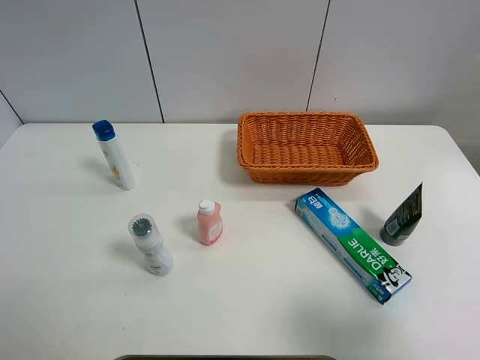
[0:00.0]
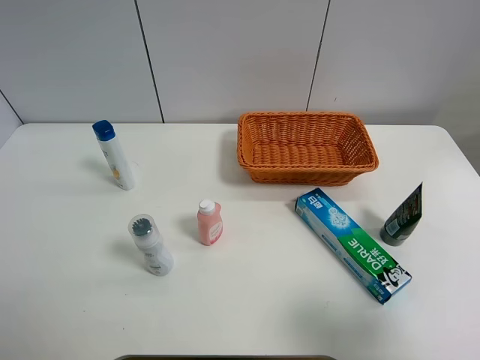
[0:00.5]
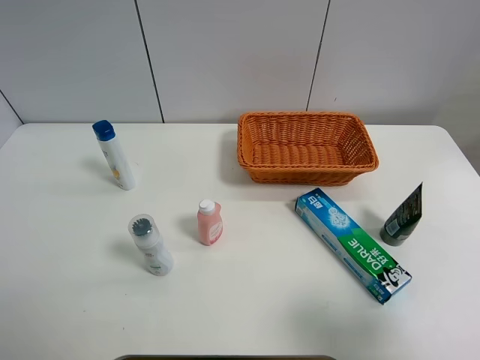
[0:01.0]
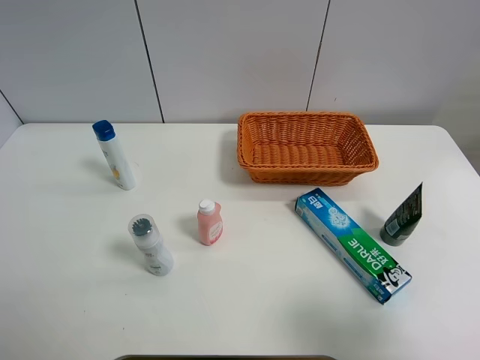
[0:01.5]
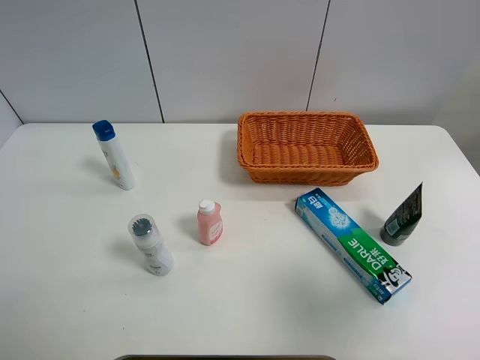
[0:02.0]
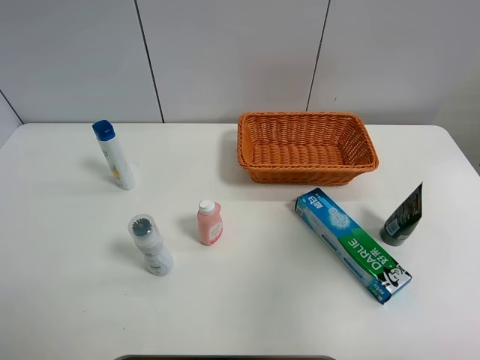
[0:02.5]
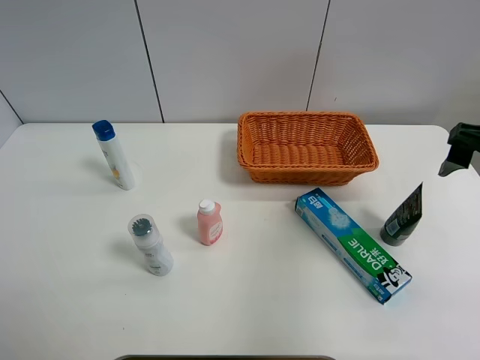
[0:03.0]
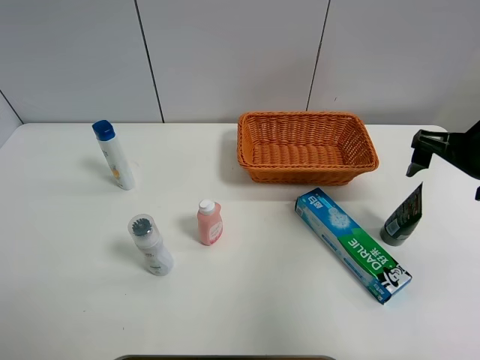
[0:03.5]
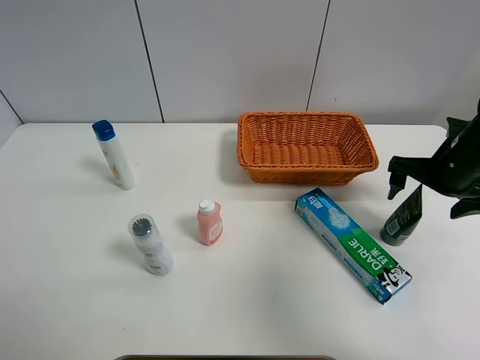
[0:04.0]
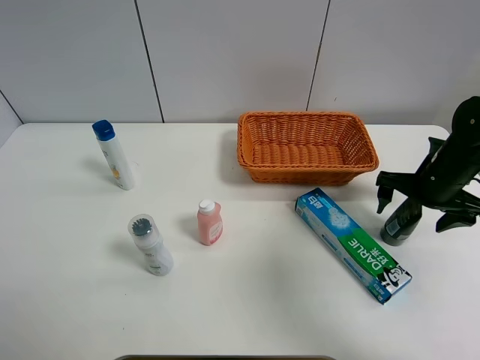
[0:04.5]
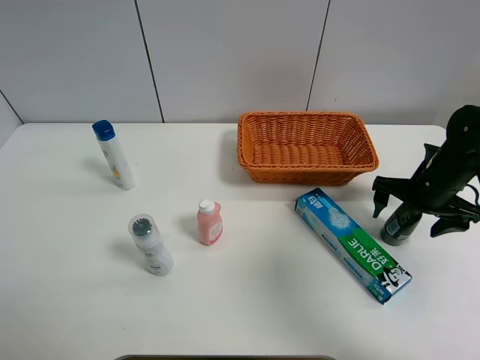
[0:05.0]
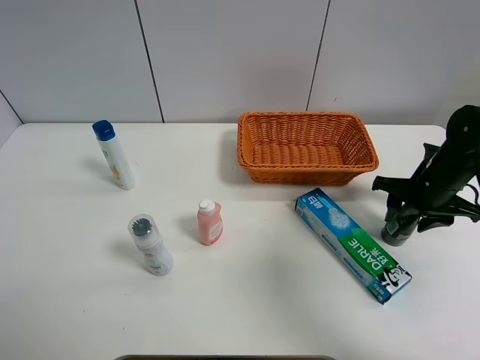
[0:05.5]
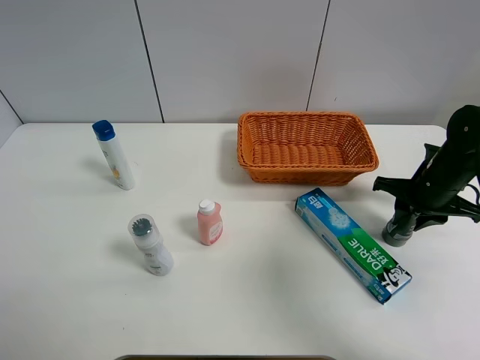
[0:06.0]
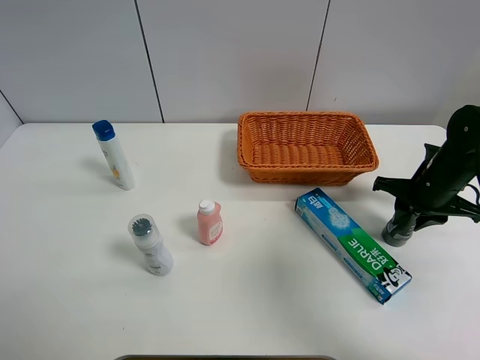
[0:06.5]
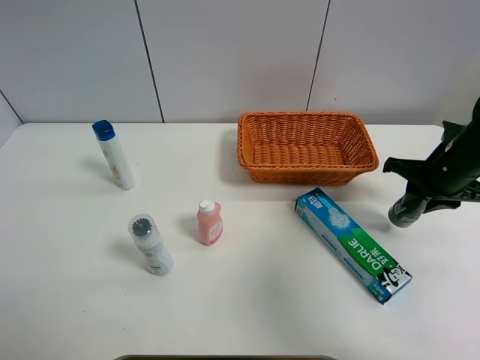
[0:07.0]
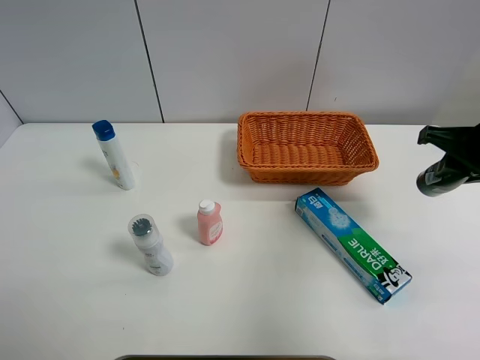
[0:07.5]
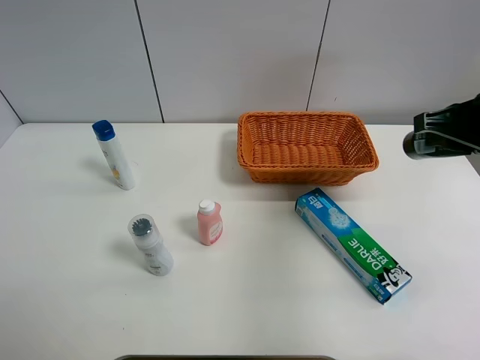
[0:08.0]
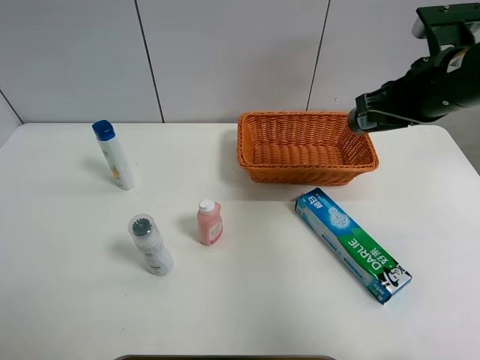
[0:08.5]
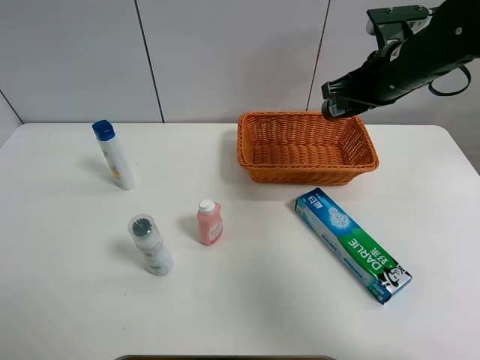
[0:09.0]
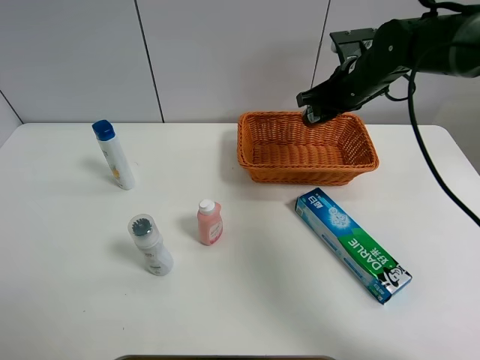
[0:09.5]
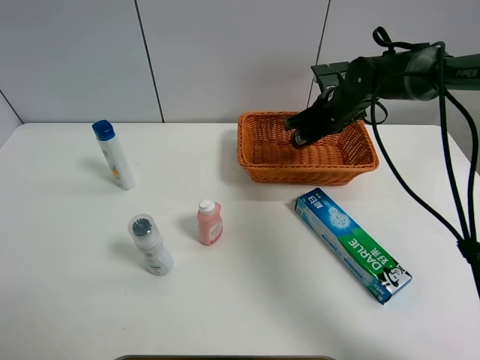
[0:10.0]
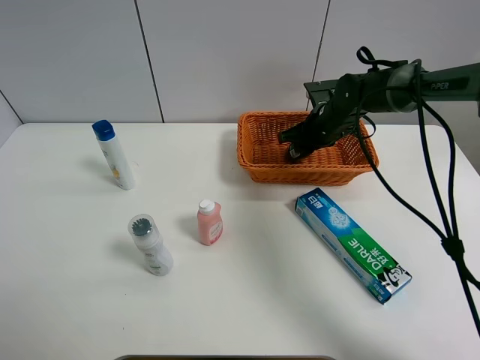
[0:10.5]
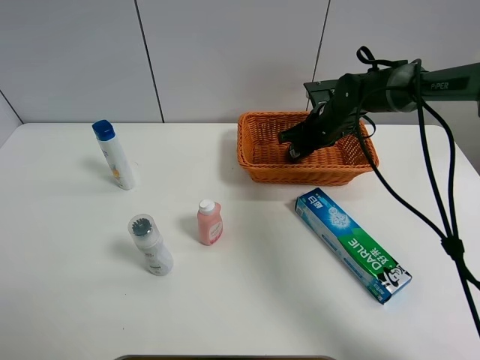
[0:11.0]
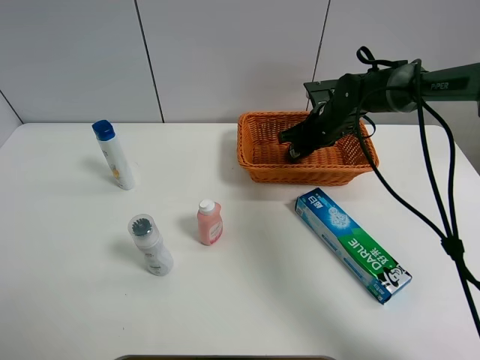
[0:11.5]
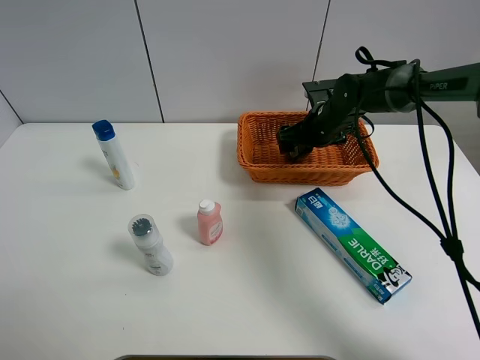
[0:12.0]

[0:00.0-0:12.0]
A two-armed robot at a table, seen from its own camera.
Task of the whole recording: Place the object closest to the toothpaste in the basket.
Step, 0:00.0 to 0:05.5: Grasp the soft facial cleanser with right gripper.
0:00.0 to 0:02.0: The right gripper goes roughly 5 cm upward.
0:02.0 to 0:04.0: The right gripper travels forward and downward by approximately 30 cm.
0:04.0 to 0:06.0: The right gripper closes.
0:06.0 to 0:08.0: The right gripper is displaced upward and backward by approximately 20 cm.
0:08.0 to 0:10.0: The right gripper heads forward, downward and to the left, covering about 25 cm.
0:10.0 to 0:12.0: The right gripper opens up.

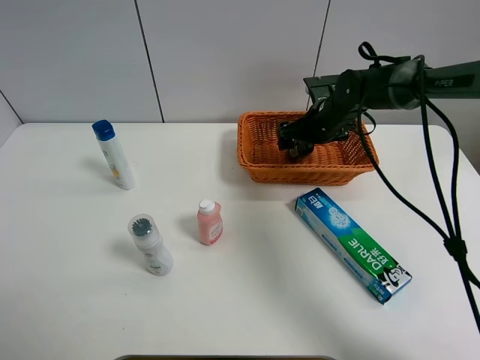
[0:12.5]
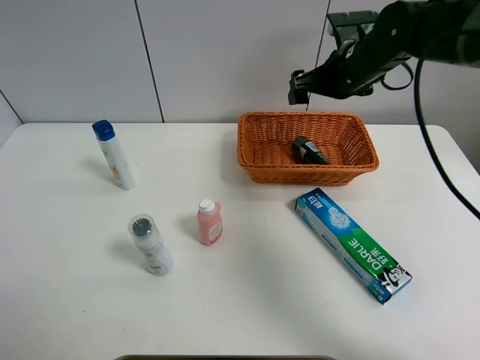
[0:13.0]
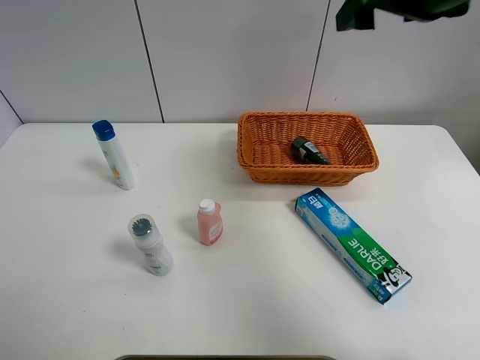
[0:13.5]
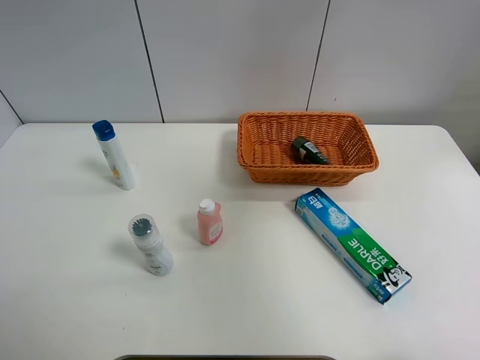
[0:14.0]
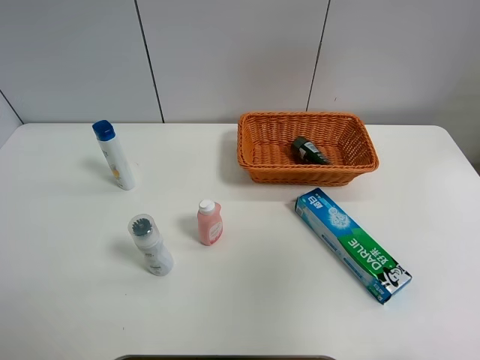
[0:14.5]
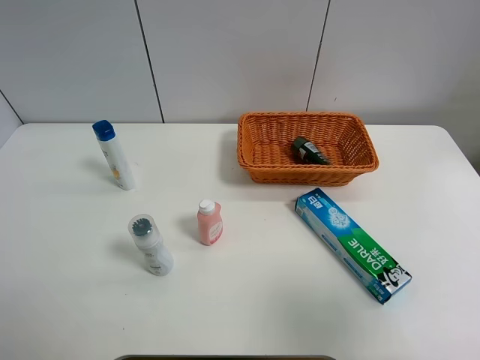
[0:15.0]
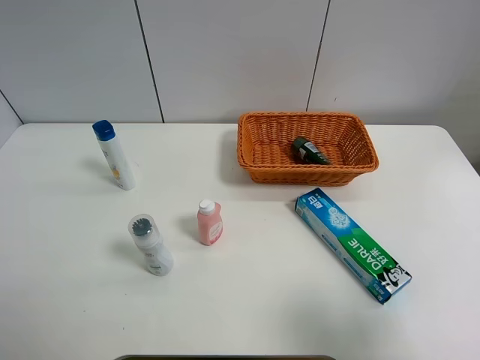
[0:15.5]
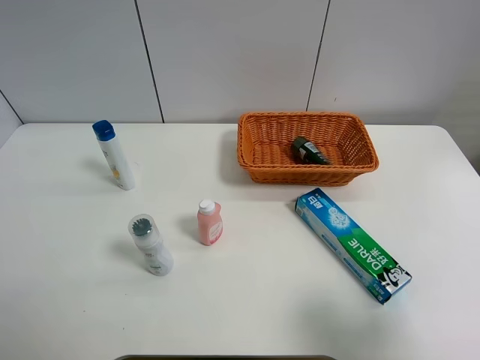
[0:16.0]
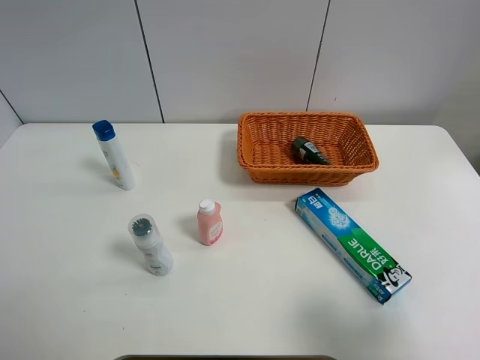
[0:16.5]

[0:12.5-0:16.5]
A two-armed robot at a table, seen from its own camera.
Task of the whole recording: Place the object closest to the toothpaste in the basket.
0:12.5 to 0:14.5: The right gripper is displaced backward and upward by about 50 cm.
0:14.5 to 0:16.5: The right gripper travels downward by roughly 20 cm.
